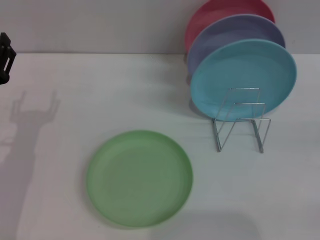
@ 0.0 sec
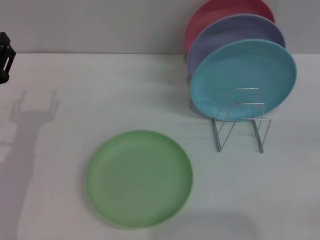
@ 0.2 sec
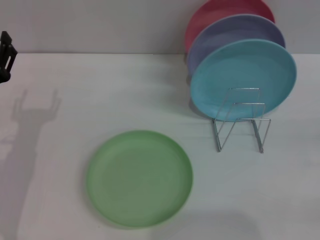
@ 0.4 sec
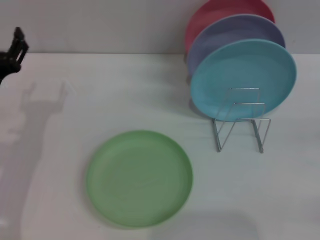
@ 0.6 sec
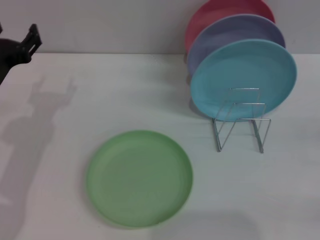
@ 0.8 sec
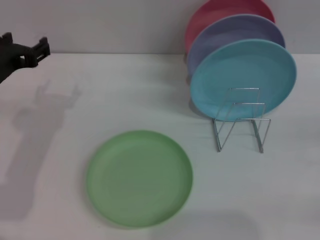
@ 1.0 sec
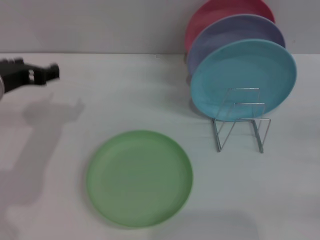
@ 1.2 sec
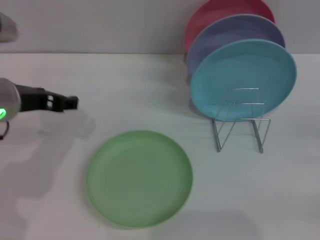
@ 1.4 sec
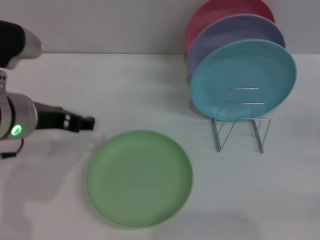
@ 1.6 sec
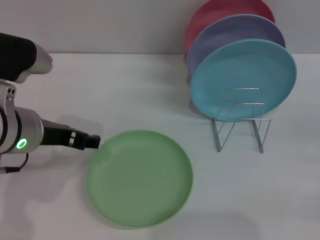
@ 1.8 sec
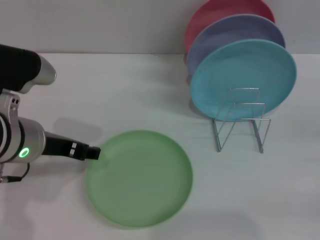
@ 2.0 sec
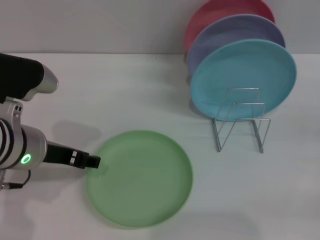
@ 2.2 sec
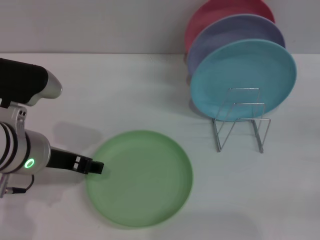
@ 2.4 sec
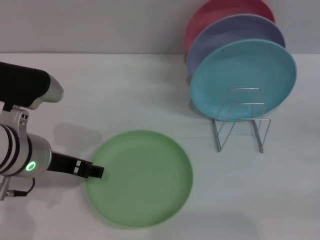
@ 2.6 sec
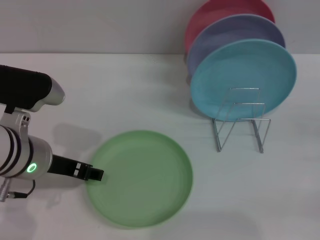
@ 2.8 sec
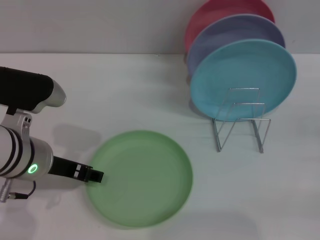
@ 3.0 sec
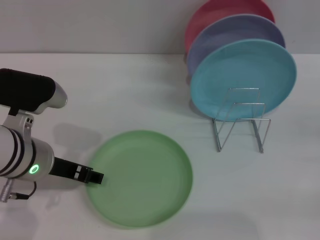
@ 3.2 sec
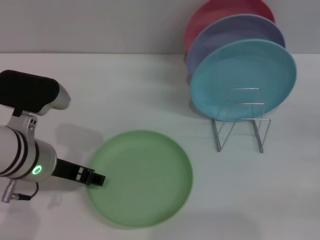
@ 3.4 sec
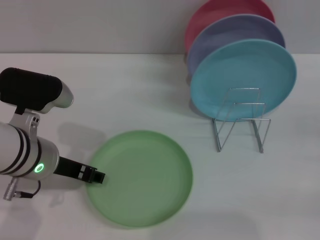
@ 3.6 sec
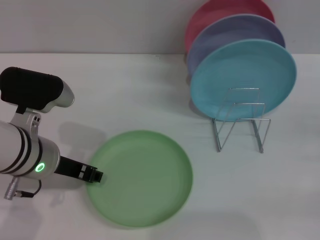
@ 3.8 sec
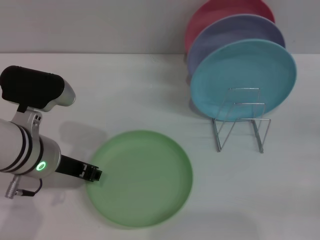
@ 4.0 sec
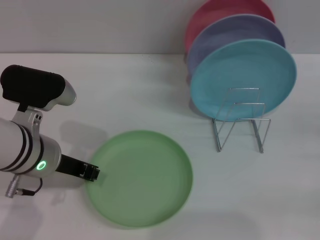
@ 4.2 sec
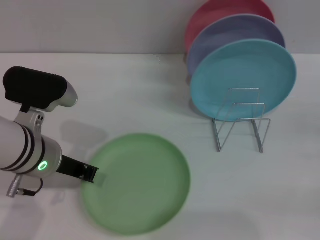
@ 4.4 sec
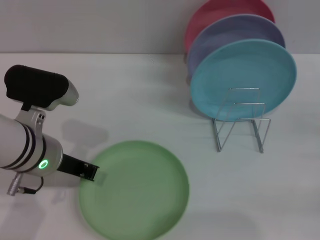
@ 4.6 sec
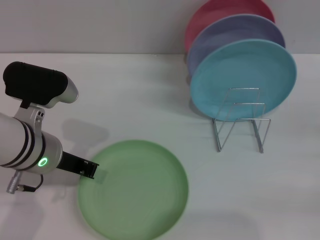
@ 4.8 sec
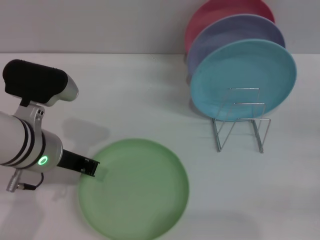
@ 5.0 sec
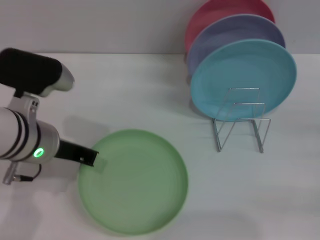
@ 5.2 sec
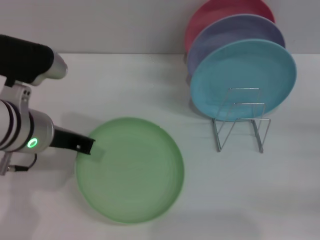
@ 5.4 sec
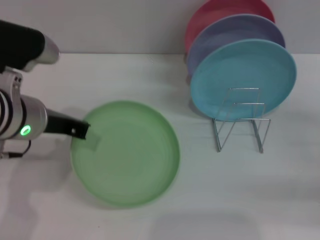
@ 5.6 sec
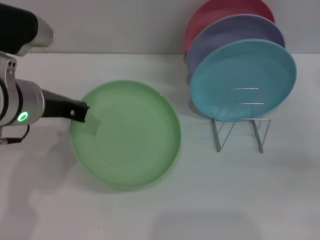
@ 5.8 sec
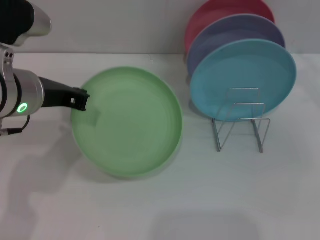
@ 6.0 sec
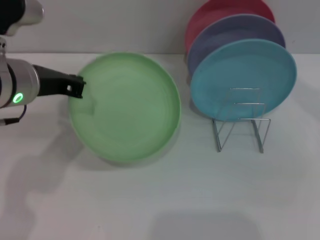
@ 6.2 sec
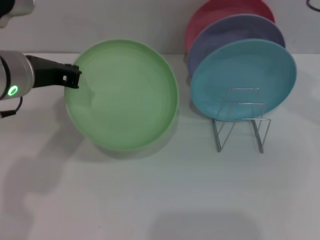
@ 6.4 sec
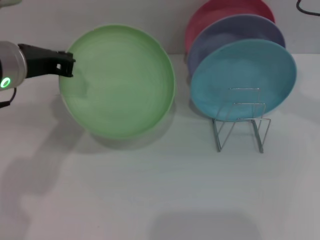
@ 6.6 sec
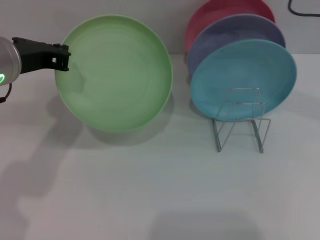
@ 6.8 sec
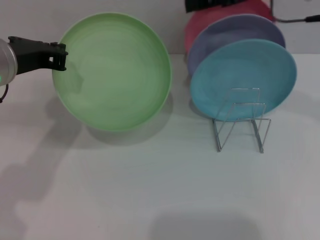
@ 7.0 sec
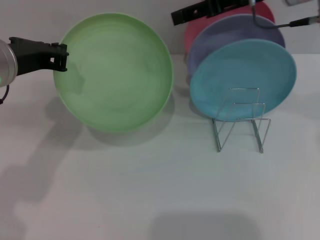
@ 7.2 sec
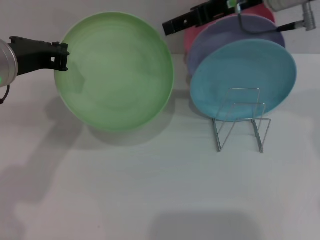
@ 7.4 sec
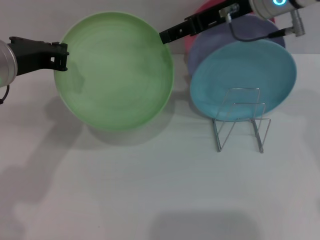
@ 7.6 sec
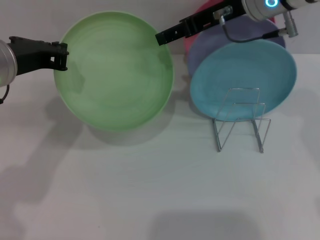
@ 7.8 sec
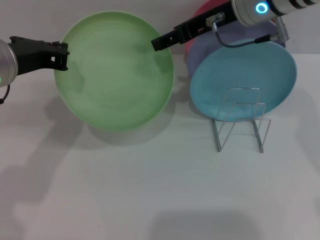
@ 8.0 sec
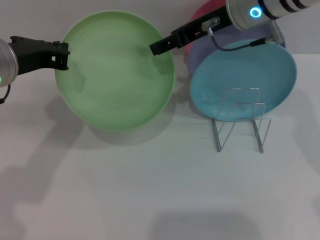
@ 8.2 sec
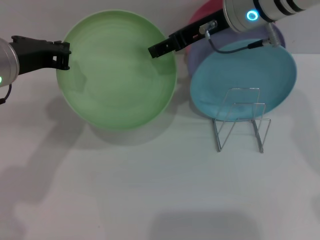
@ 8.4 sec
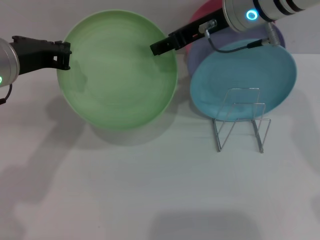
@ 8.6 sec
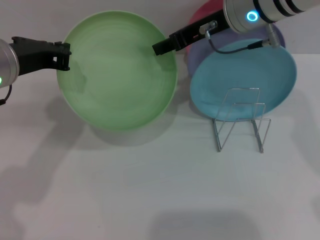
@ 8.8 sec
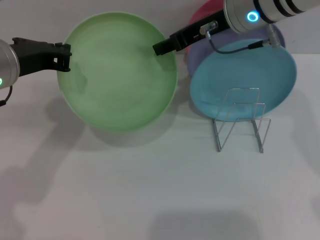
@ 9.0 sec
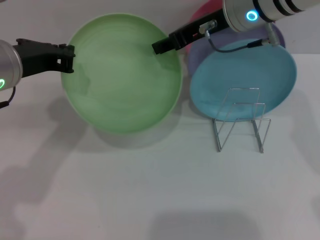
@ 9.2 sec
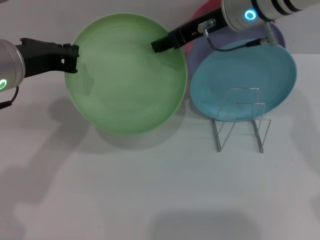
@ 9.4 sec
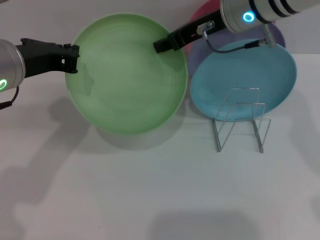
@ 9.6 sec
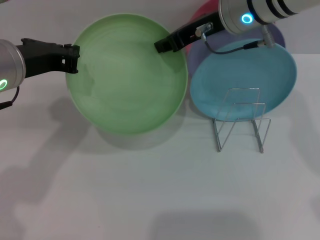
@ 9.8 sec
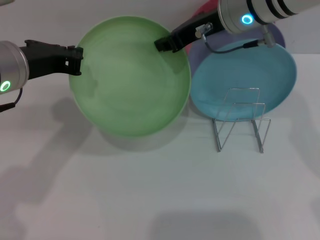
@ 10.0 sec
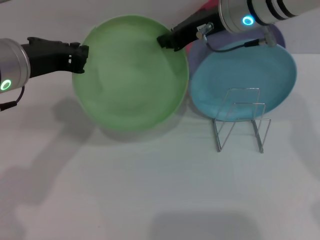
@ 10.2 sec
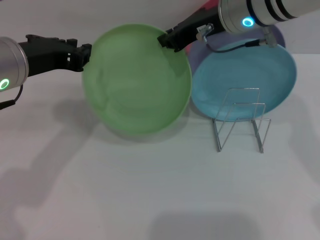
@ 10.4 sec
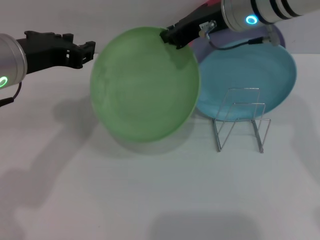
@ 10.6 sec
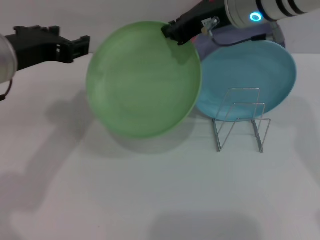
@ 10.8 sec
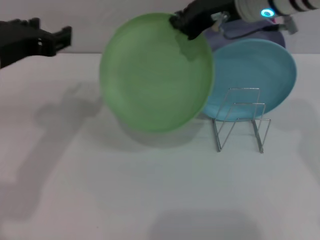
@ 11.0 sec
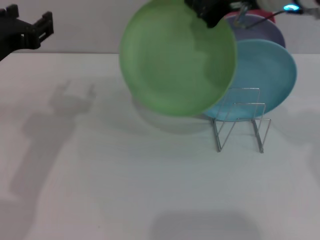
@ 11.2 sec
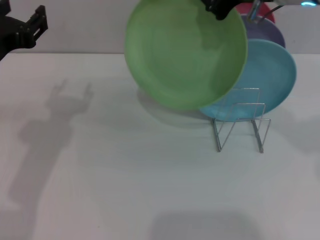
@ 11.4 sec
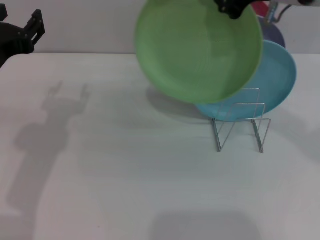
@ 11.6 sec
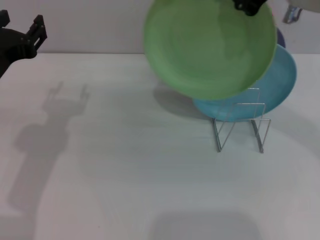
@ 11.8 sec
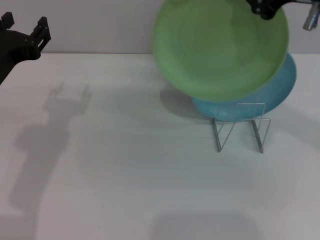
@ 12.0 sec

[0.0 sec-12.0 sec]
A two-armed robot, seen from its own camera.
Task of the whole recording: Grip the plate with one hand, pass it to the other, then set it on the shelf.
Step, 0.0 sec to 6.4 sec: Pick up the plate with the left gripper.
0.0 sec to 1.6 sec: The left gripper moves upward and to the right, some 10 cm.
1.6 sec to 3.0 sec: The left gripper travels downward by about 5 cm.
3.0 sec to 4.4 sec: The left gripper closes up.
4.4 sec to 6.0 sec: The left gripper shifts some 10 cm upward, and closes up, while the right gripper moves forward, upward and to the left, roughly 20 cm.
6.0 sec to 7.6 sec: The right gripper shifts about 20 cm to the left and upward.
7.6 sec to 9.0 sec: The grippers make only small movements.
9.0 sec to 10.4 sec: The right gripper closes its fingers.
10.4 sec to 12.0 sec: The left gripper is displaced downward by approximately 5 cm, and opens. The right gripper moves to the right, backward and upward, approximately 15 cm.

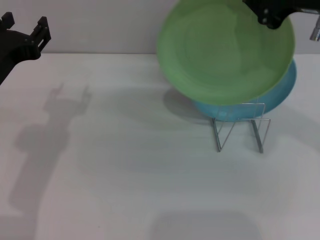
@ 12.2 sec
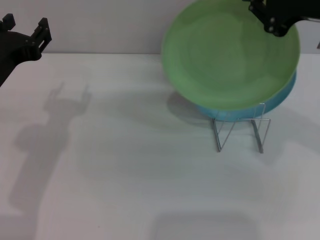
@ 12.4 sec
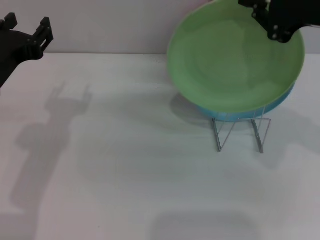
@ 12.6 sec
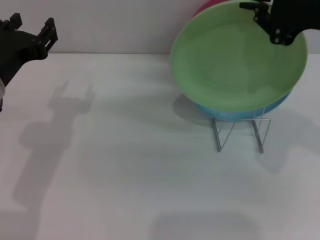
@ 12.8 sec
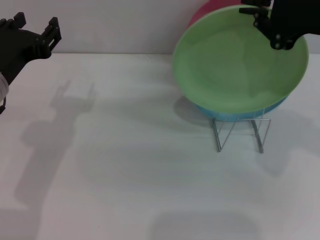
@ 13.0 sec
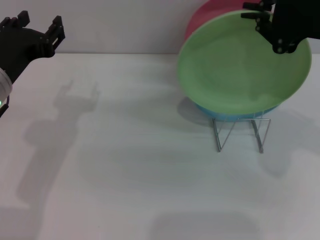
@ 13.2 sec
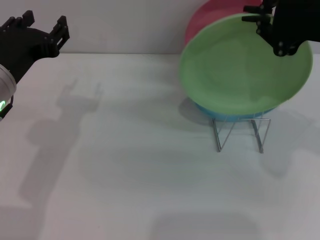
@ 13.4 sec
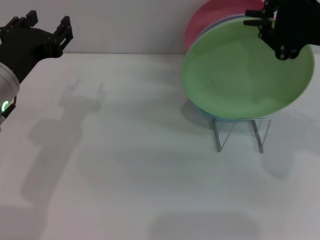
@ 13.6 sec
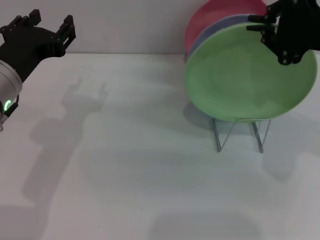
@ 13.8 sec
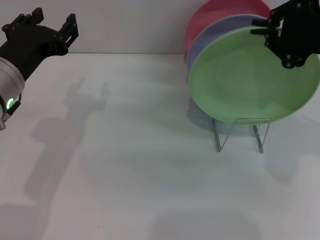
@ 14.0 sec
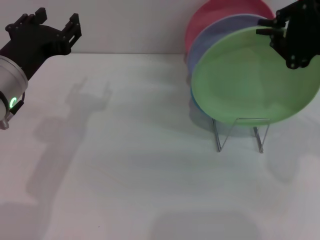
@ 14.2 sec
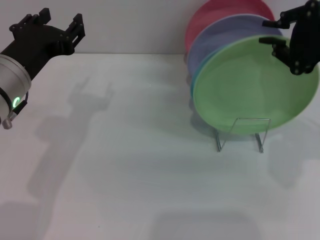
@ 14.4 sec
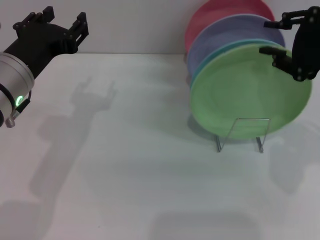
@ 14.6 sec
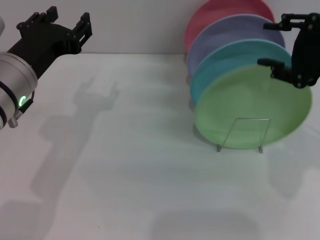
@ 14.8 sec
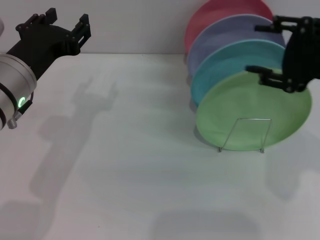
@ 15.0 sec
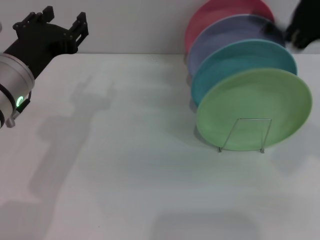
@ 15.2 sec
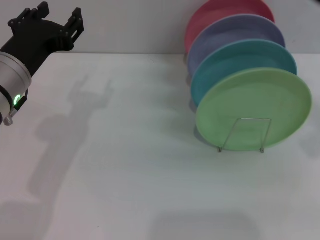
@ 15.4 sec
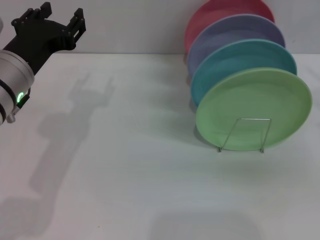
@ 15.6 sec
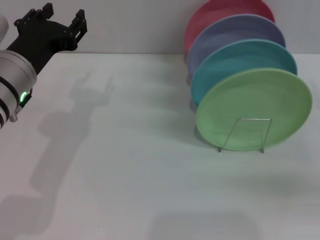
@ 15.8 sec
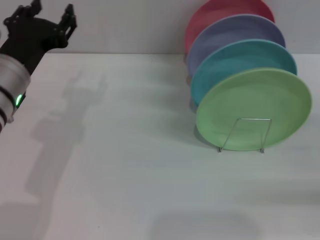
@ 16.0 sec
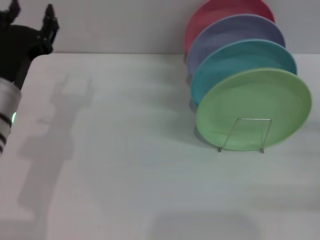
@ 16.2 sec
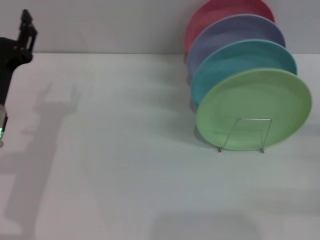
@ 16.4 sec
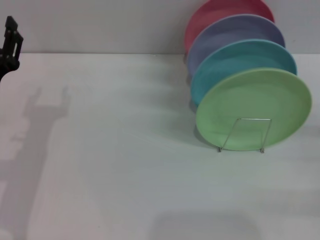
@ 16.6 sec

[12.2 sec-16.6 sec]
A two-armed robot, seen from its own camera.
Task of the whole recording: Grip the plate with one hand, pass it to the other, then set it on the shelf.
Step, 12.6 sec to 15.4 sec: Place the plate on the shelf with the right gripper.
12.2 sec to 13.6 sec: The grippers stay close to where they were, moving slightly.
13.6 sec to 15.2 sec: The right gripper opens its fingers.
15.2 sec to 16.6 sec: The right gripper is displaced downward and to the right by about 20 cm. The left gripper shifts about 10 cm downward and to the left.
